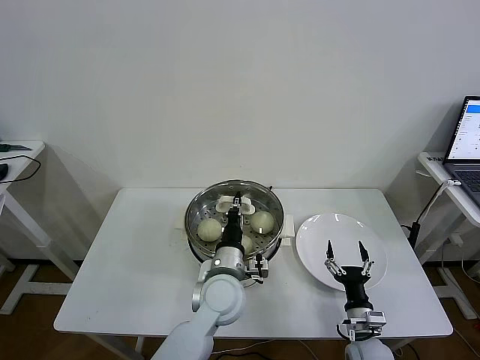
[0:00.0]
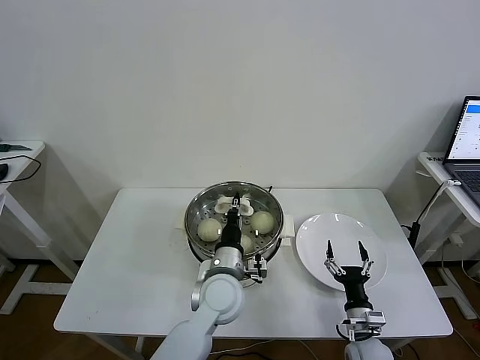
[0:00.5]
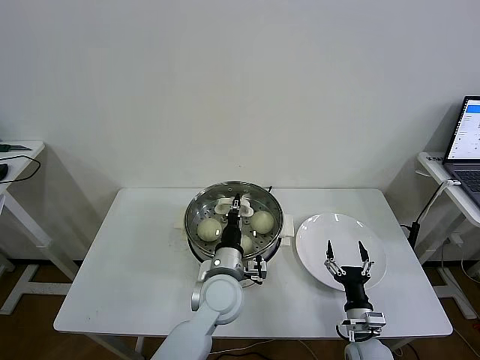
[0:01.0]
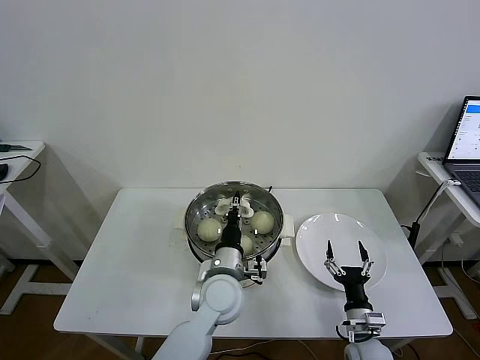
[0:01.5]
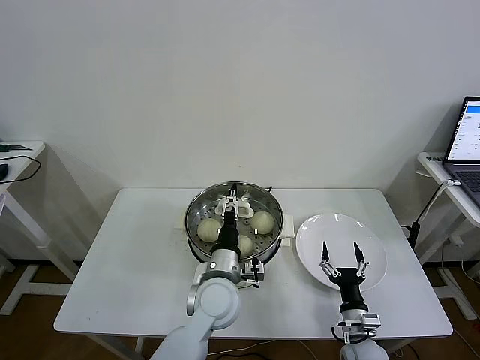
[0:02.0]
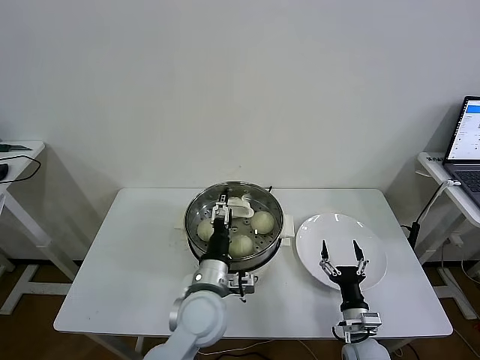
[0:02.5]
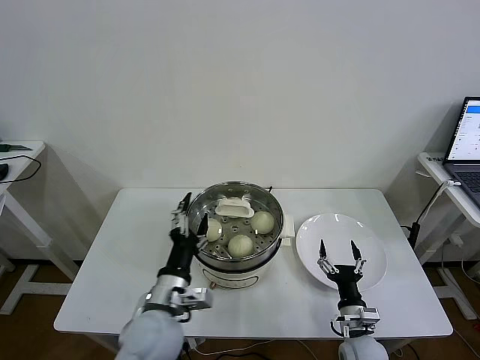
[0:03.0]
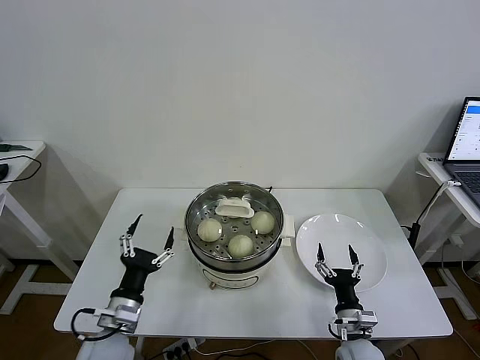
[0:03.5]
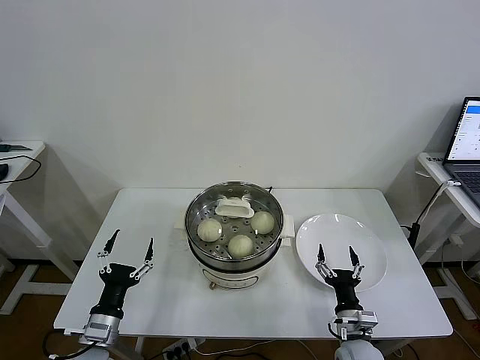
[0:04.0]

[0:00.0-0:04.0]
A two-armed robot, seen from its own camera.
Task of the whole recording: take steamed baozi put them in steamer then cover it.
0:00.0 to 0:02.0: The left gripper opens up.
0:02.0 to 0:04.0: The left gripper moves to the left and backward, approximately 30 cm.
